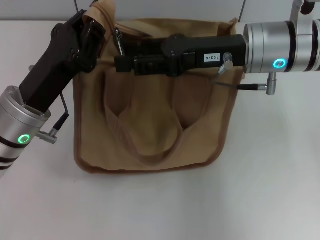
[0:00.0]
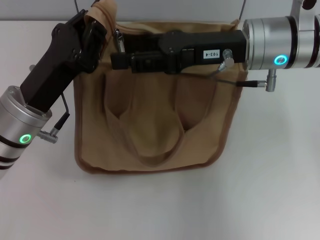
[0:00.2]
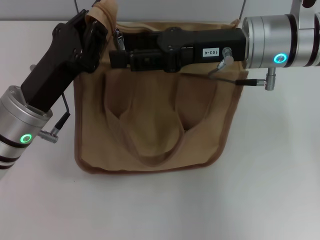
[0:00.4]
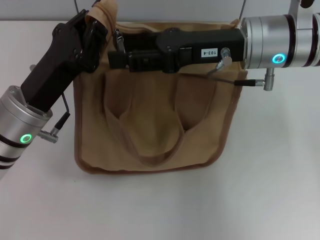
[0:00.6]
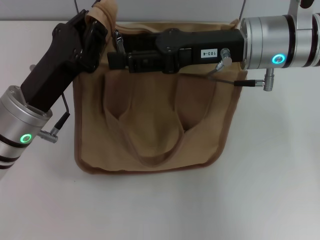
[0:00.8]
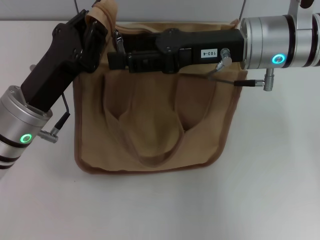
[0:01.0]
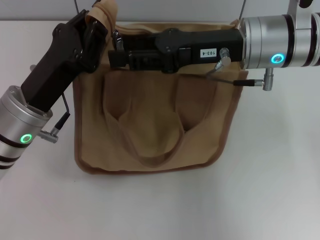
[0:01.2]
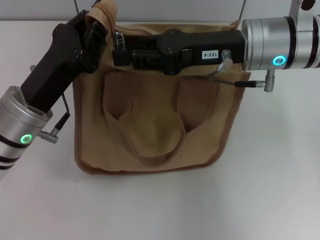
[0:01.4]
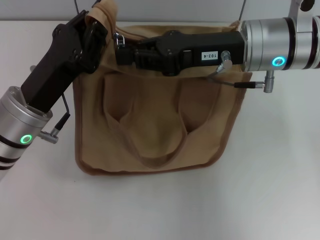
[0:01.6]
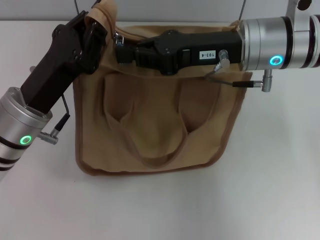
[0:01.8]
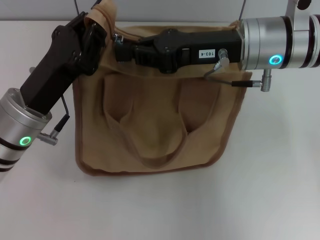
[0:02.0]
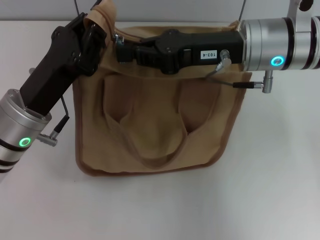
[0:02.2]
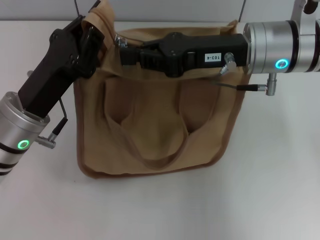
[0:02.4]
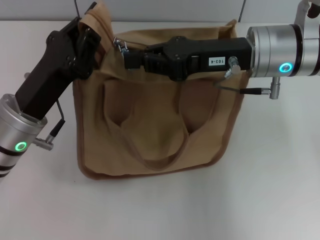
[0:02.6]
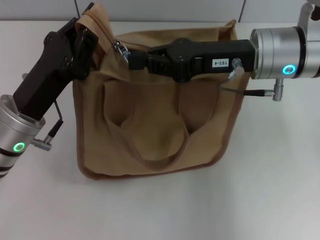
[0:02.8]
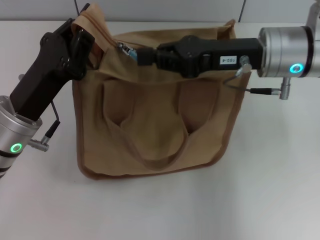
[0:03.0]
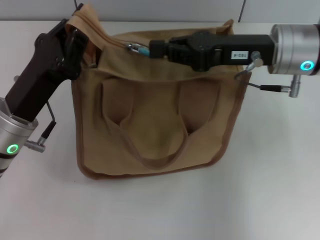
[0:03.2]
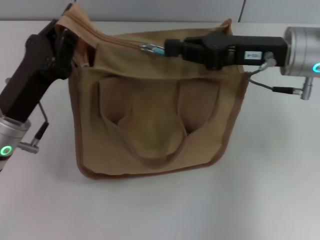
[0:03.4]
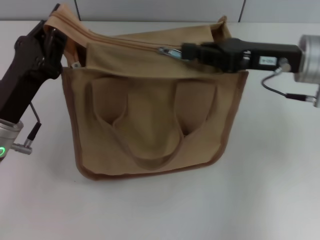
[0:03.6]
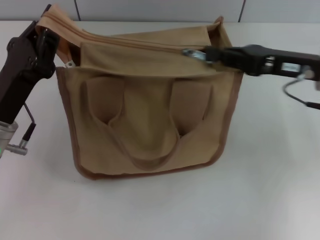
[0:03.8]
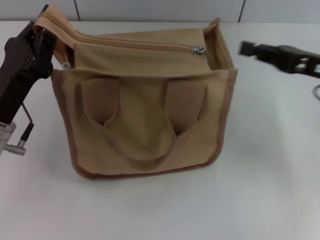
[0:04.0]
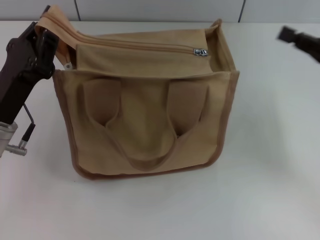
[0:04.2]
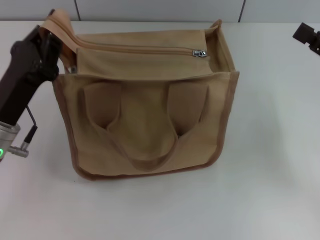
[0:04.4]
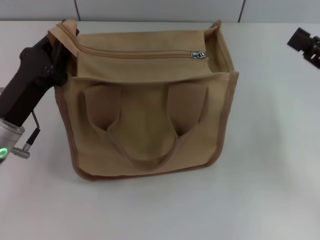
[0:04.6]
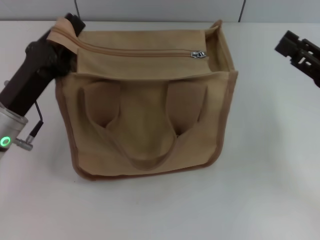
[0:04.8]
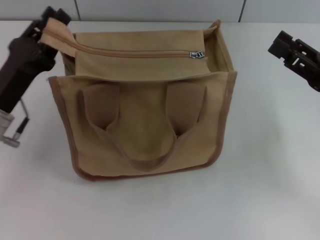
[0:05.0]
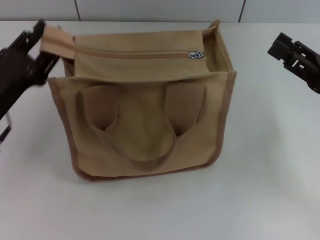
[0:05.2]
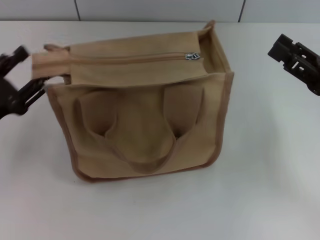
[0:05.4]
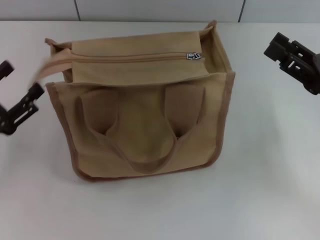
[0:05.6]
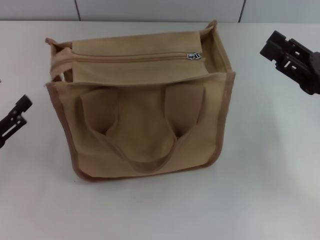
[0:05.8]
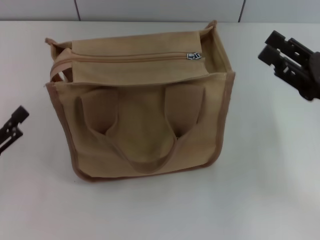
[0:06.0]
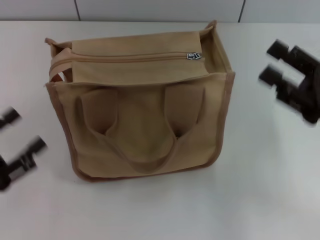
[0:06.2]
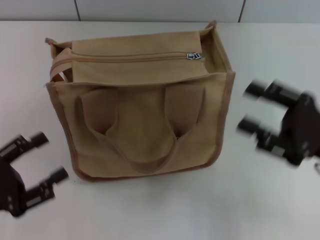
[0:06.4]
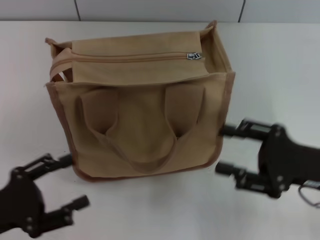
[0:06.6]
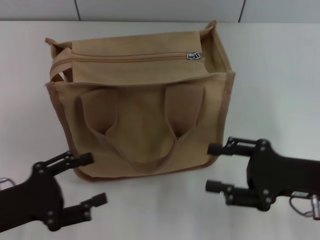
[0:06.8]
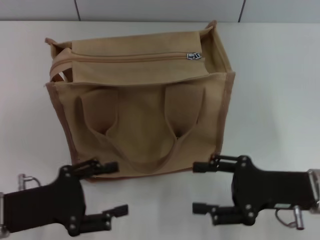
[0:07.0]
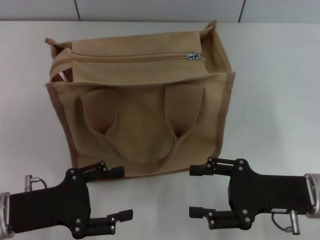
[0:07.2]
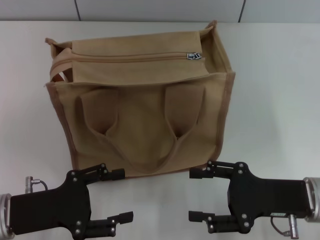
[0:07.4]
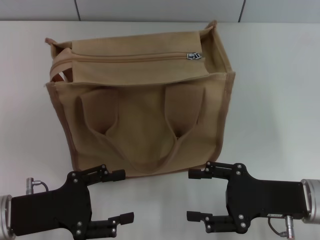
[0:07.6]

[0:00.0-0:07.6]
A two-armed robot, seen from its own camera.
Step, 0:00.0 to 0:03.8: Pull up the zipper with your right hand.
Step, 0:04.0 to 0:05.6: Grab the zipper with your left hand.
0:00.0 to 0:01.6: Both grippers stay put.
0:01.6 to 0:03.0: The right gripper closes its fingers.
0:03.0 to 0:04.6: The right gripper heads to the right, backward and downward, covering some 20 cm, and opens.
0:04.6 to 0:06.0: The left gripper moves to the left and backward, approximately 15 cm, and opens up. Meanwhile the right gripper opens up.
0:06.0 to 0:07.6: The left gripper goes roughly 10 cm to the right, while the right gripper shifts roughly 10 cm downward and to the left.

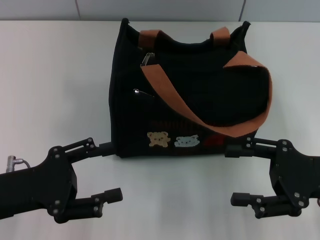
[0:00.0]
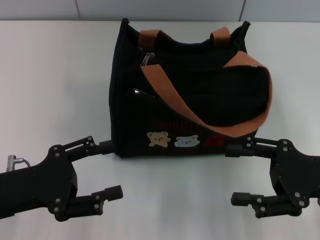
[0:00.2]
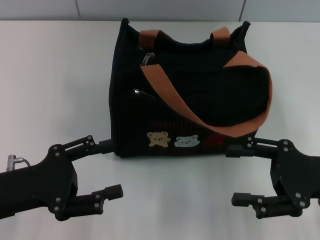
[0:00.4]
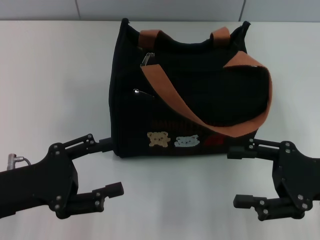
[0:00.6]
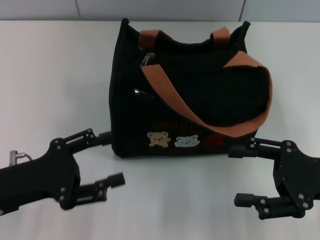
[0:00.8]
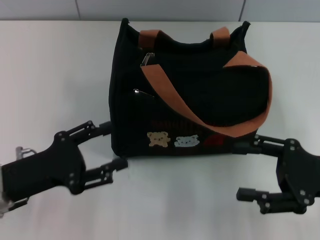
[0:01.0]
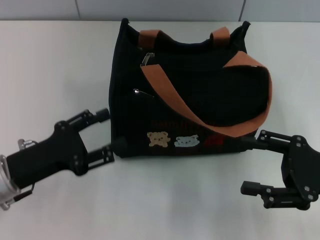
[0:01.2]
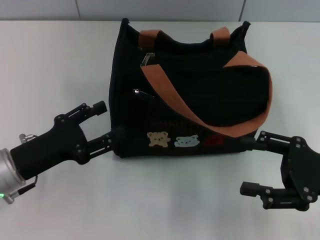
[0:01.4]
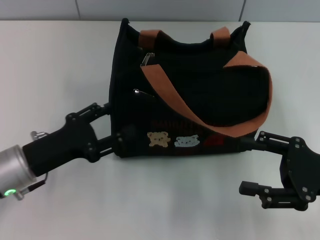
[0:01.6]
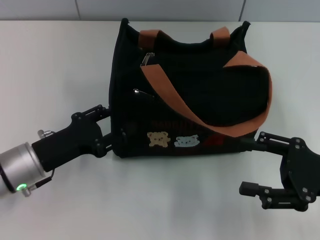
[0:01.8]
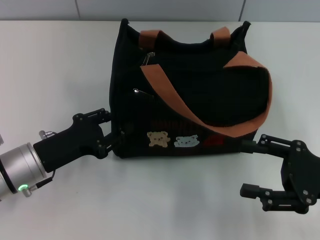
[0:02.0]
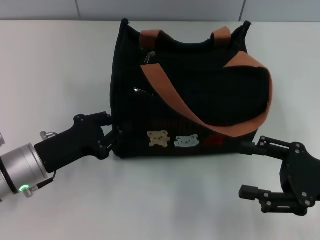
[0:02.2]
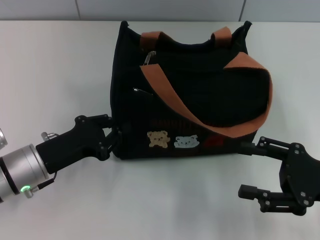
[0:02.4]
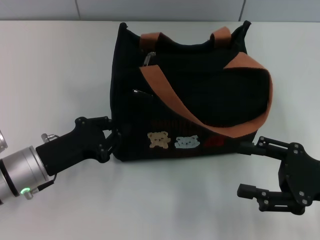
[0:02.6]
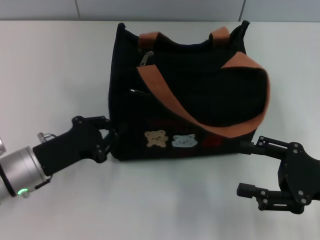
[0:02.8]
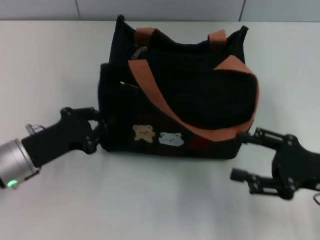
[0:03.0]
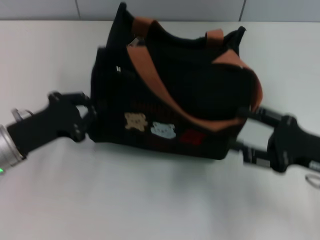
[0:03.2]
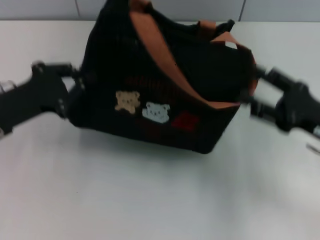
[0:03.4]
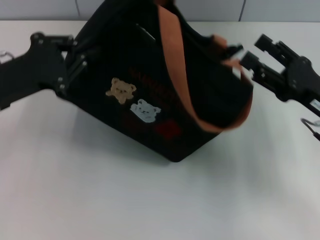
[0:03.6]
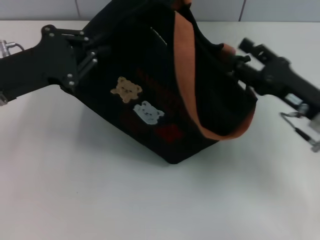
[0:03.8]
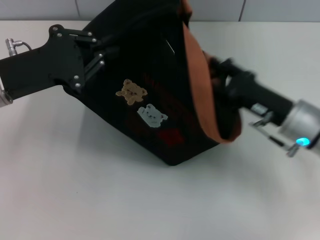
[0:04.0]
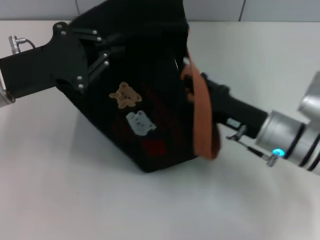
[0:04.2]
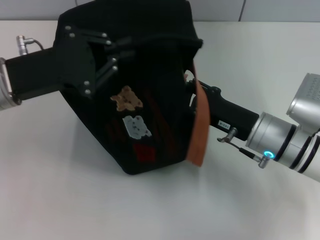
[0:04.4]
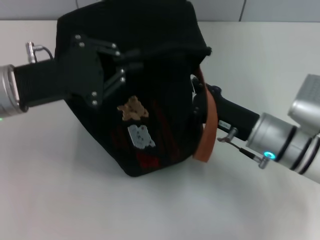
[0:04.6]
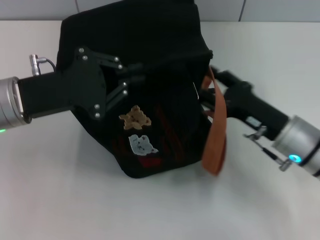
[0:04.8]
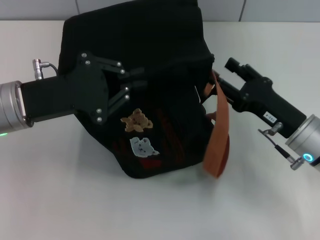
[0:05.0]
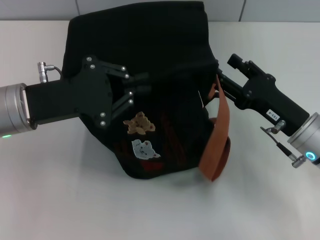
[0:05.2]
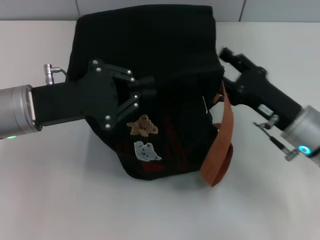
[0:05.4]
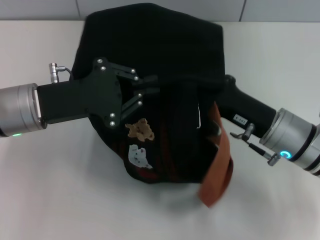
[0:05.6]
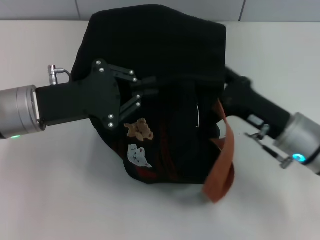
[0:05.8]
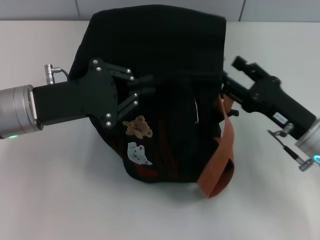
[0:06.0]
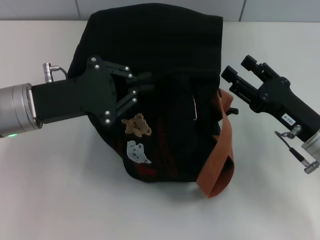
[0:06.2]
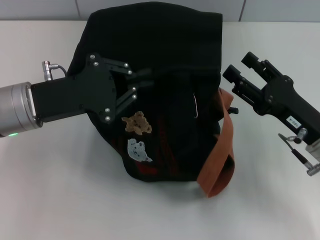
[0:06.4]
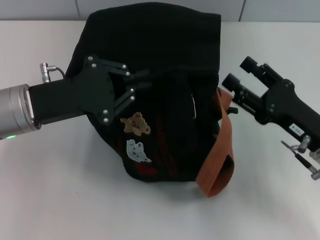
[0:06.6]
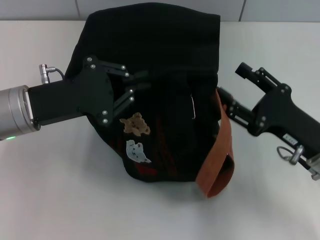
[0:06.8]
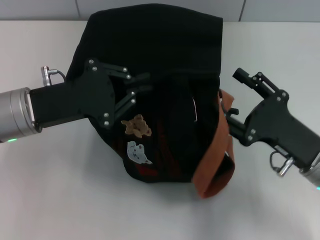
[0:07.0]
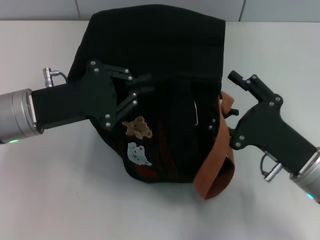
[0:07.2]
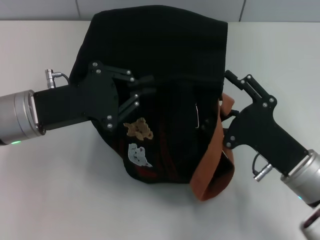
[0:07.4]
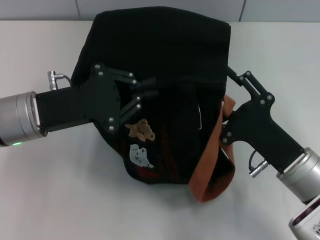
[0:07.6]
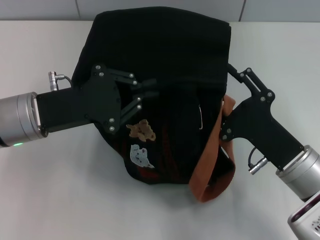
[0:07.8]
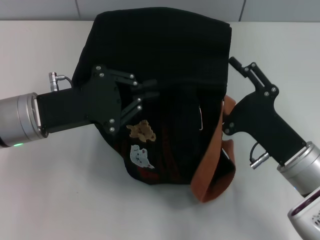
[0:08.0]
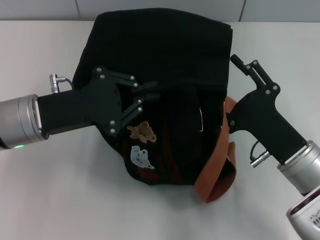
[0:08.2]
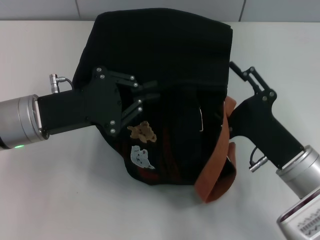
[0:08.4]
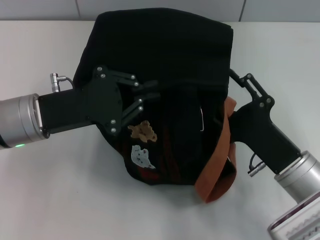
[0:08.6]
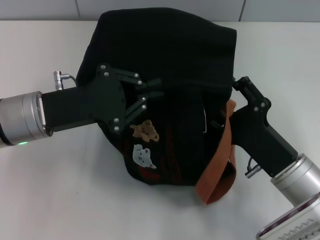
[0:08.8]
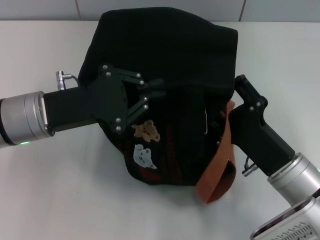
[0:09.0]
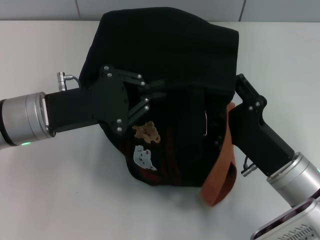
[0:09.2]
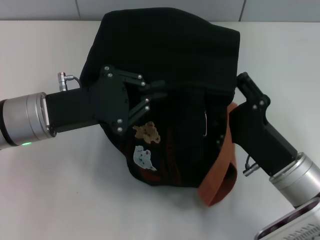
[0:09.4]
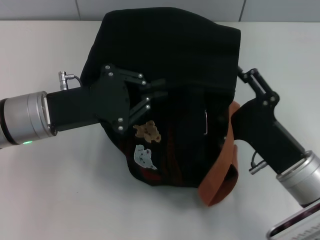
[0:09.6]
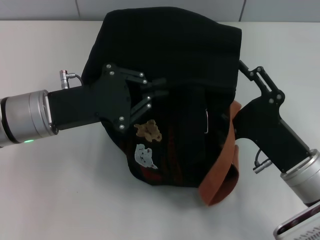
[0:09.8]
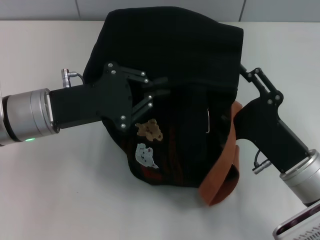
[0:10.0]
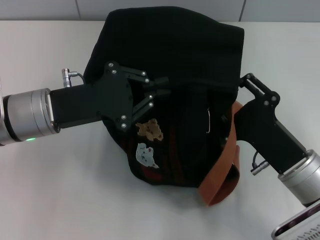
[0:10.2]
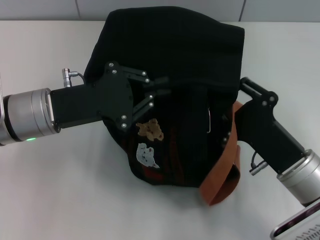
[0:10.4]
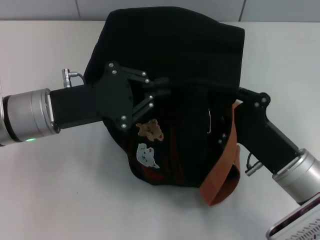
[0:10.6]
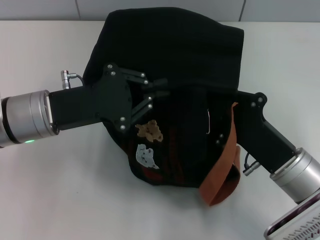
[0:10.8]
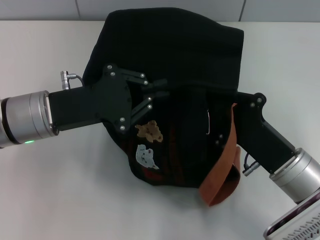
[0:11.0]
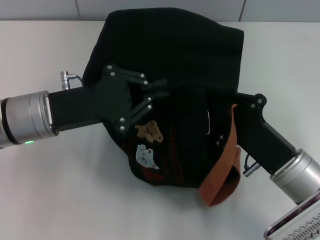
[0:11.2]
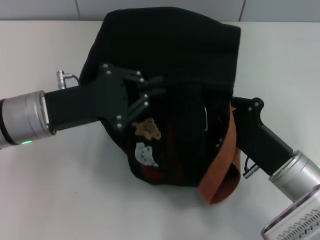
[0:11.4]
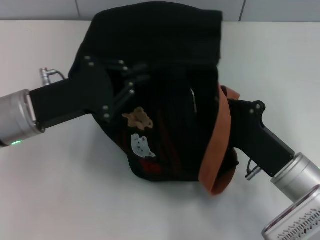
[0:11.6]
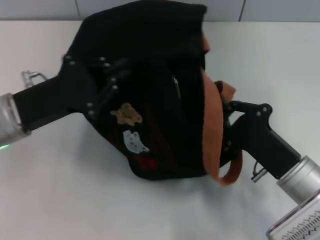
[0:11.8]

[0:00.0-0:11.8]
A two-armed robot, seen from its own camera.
0:01.4 to 0:03.0: The left gripper closes its fingers.
0:03.0 to 0:04.4: The right gripper shifts roughly 15 cm to the left and forward. The left gripper travels upward and forward by some 10 cm.
0:04.4 to 0:06.0: The right gripper swings left and right, some 5 cm each way, with 2 reversals.
0:06.0 to 0:07.4: The right gripper travels backward by some 5 cm.
0:08.8 to 0:10.4: There are only small adjustments of the grippers.
0:10.4 to 0:11.8: The right gripper closes its fingers.

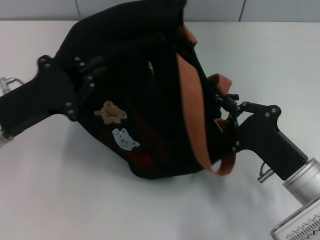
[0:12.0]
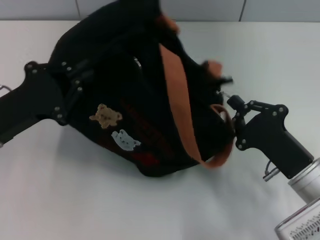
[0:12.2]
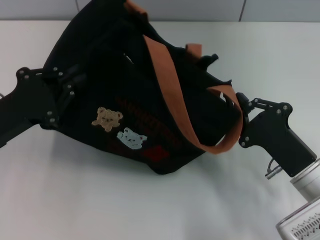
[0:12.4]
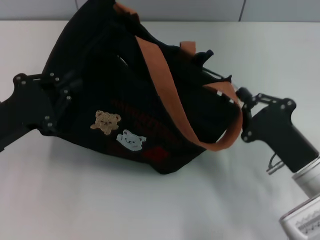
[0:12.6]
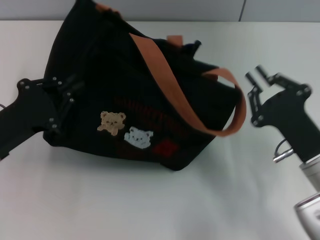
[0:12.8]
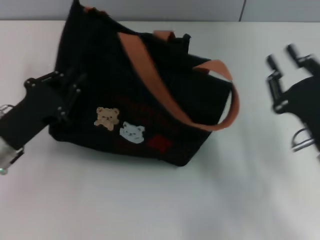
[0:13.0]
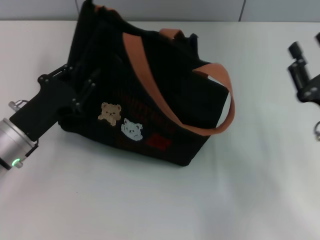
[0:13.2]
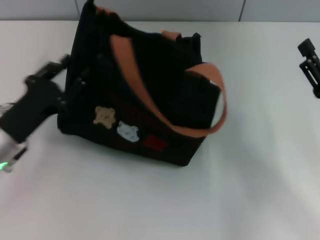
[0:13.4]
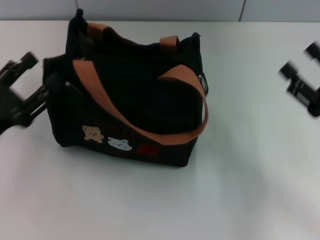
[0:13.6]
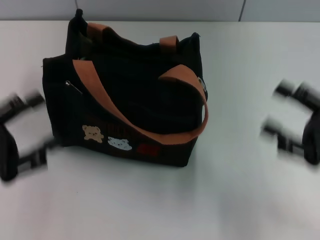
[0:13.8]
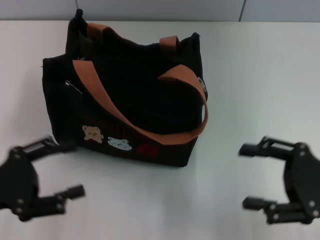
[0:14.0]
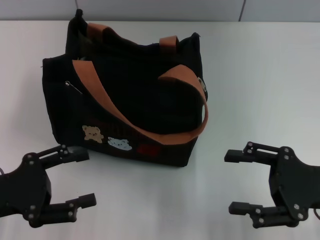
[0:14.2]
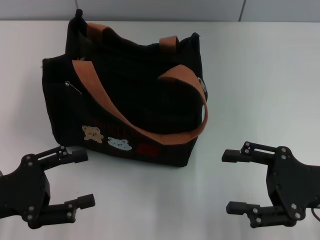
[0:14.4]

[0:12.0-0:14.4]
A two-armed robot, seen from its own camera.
Step, 0:13.0 to 0:13.4: Grab the bag with your left hand.
0:12.0 to 0:13.2: The left gripper heads downward, covering some 5 cm. The right gripper shifts by approximately 5 cm.
0:13.2 to 0:14.4: The right gripper opens. The left gripper is displaced backward and to the left by roughly 10 cm, and opens up.
